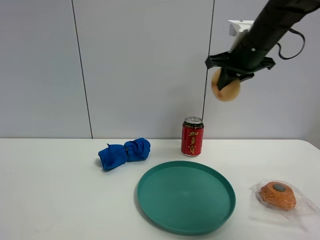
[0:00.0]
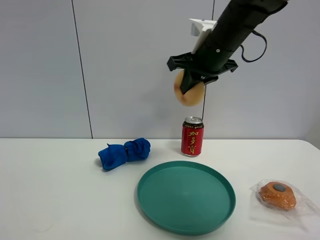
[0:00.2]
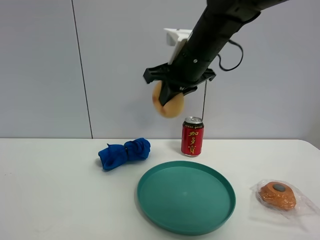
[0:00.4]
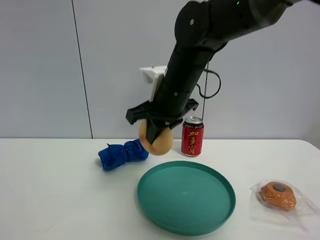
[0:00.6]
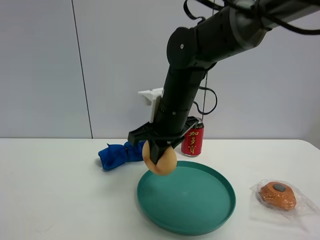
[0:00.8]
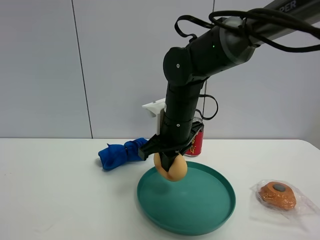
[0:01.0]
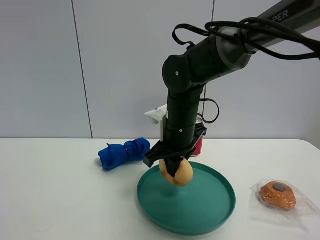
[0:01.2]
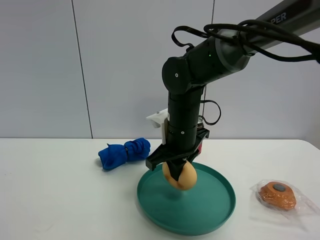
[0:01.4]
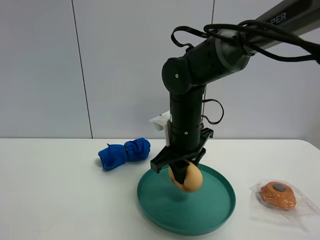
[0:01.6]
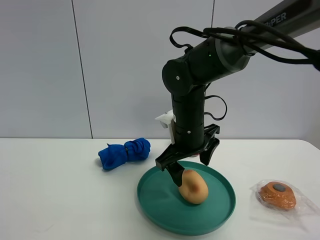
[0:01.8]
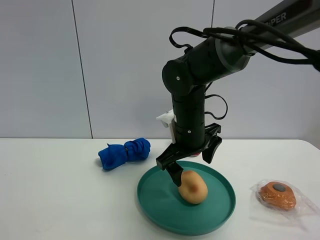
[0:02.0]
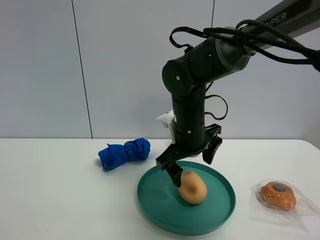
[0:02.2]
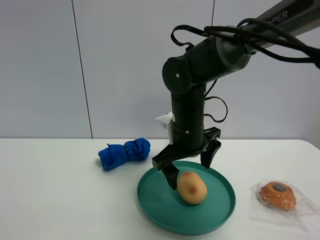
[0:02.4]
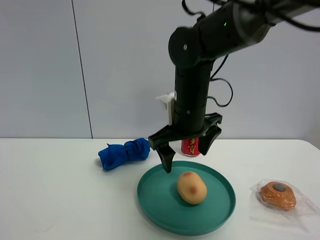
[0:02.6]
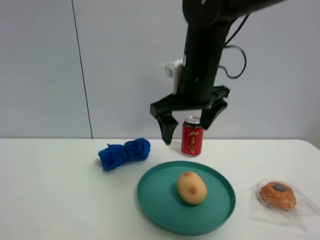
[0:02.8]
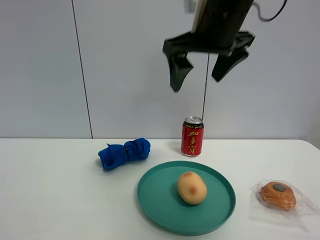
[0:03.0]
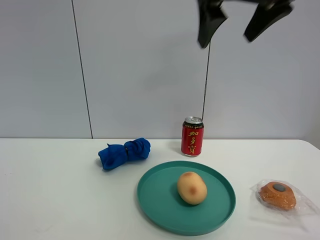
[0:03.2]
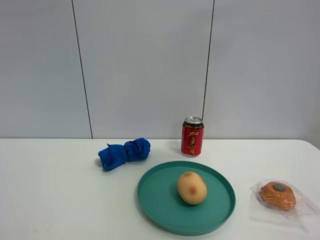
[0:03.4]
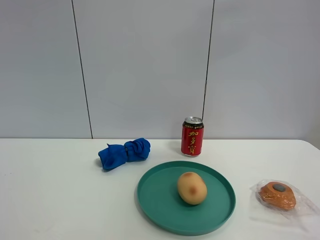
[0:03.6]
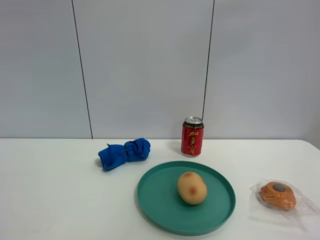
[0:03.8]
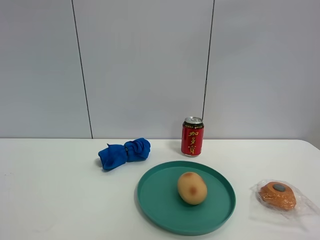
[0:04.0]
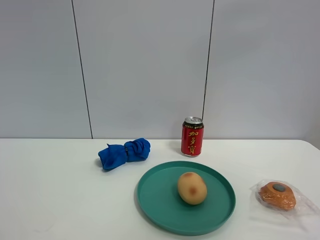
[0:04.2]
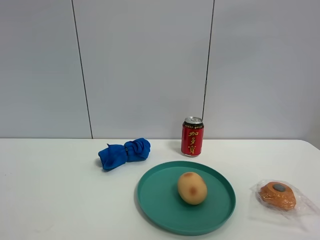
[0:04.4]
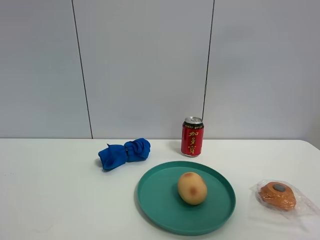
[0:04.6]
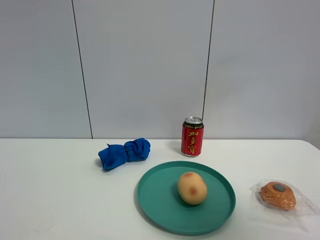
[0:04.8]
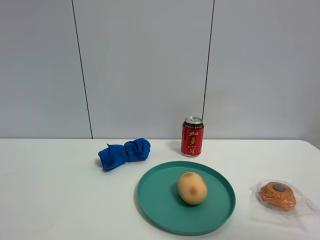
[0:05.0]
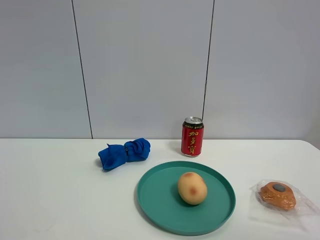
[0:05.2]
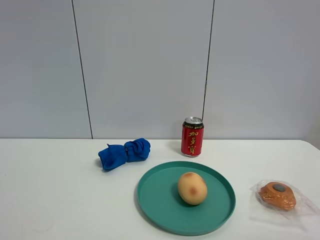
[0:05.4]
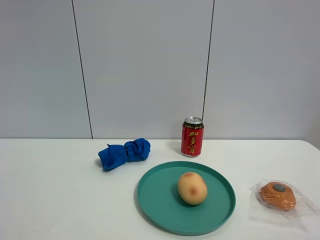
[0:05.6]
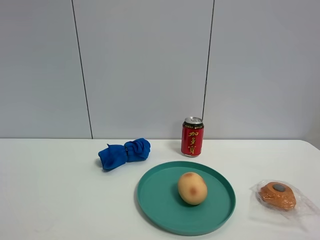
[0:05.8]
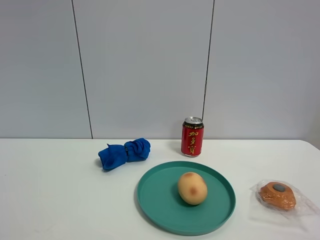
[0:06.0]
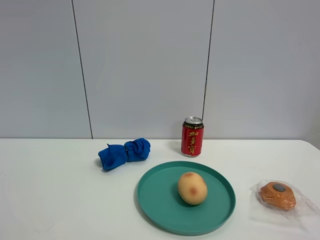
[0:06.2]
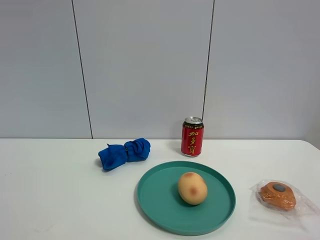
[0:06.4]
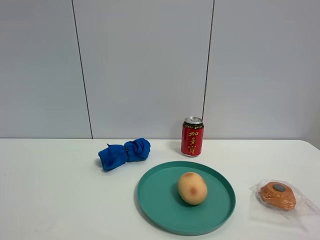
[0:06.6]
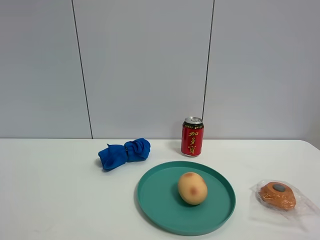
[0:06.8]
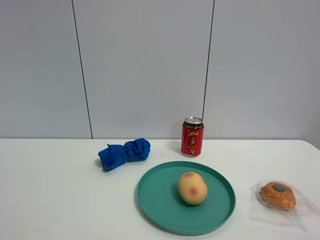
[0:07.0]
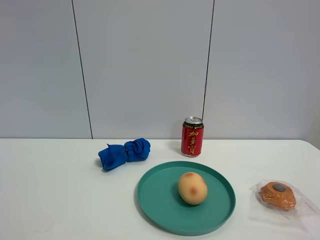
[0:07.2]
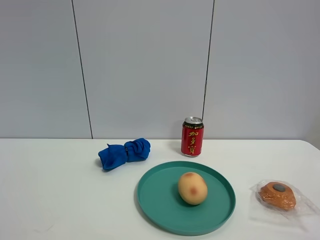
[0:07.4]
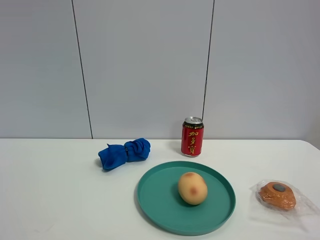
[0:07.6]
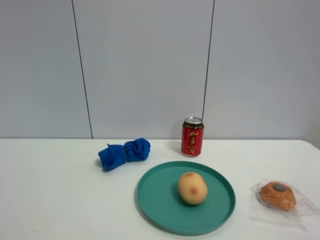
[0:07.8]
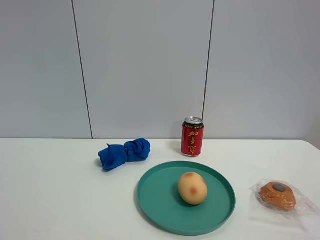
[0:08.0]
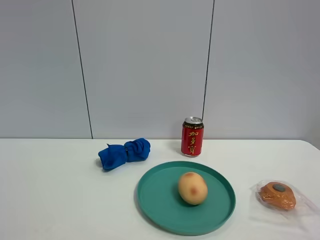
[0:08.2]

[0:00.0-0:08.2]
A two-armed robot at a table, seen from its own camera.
Task of the whole recording: the gripper move the object.
Step, 0:00.0 to 0:02.0: Place the egg yolk pastry into the green plate with the right gripper.
0:00.0 to 0:01.6: The right gripper shifts some 20 cm downward and to the left.
0:01.6 to 0:03.2: The right gripper goes roughly 25 cm upward, and opens its fingers.
0:03.2 to 0:05.0: The right gripper heads backward and to the right, covering some 30 cm.
0:05.0 to 0:06.6: The right gripper shifts some 10 cm downward.
0:06.6 to 0:08.2: Both grippers stay about where they are.
